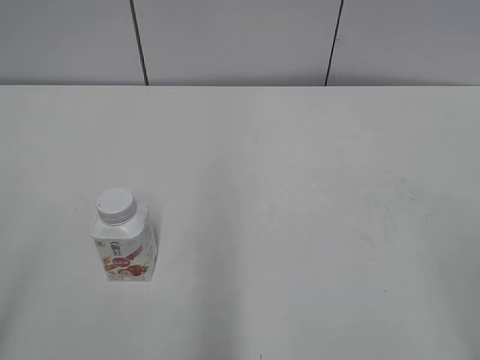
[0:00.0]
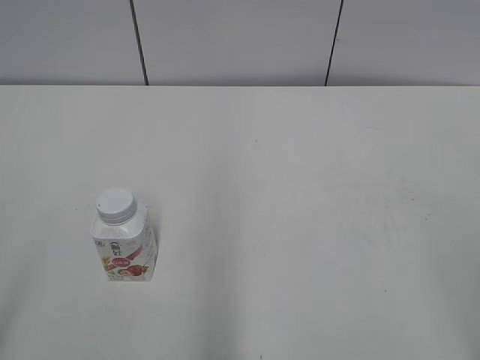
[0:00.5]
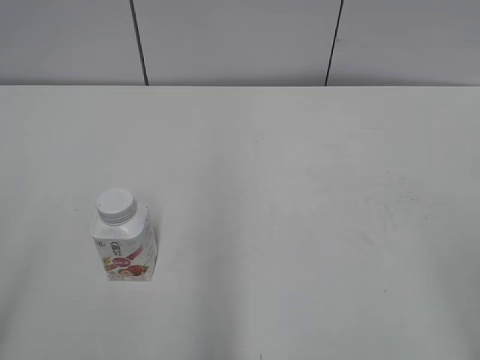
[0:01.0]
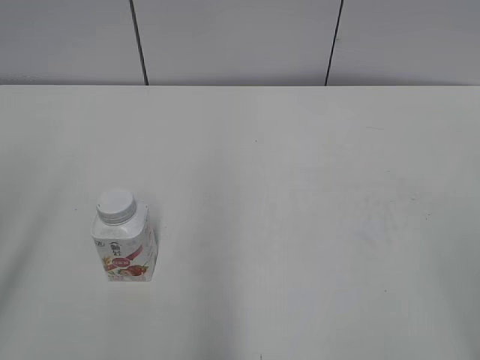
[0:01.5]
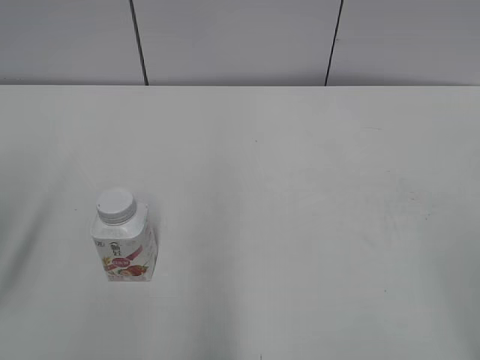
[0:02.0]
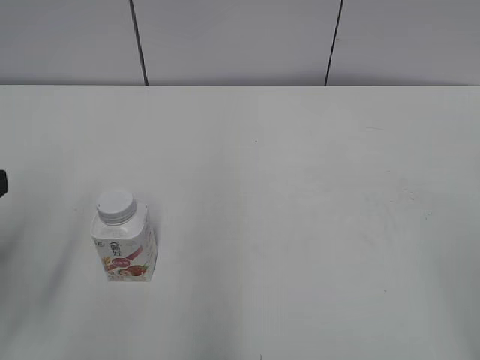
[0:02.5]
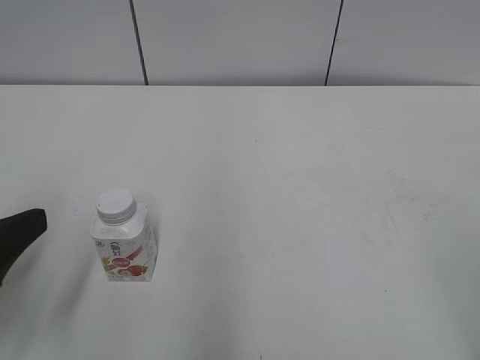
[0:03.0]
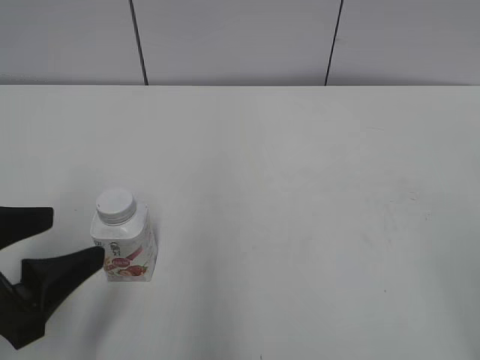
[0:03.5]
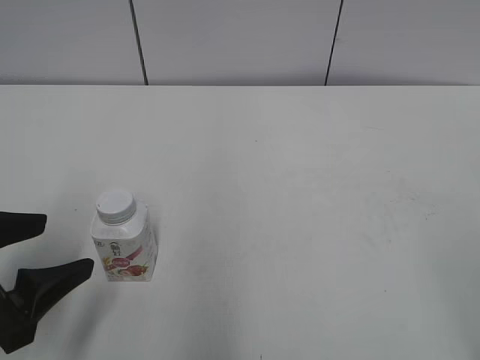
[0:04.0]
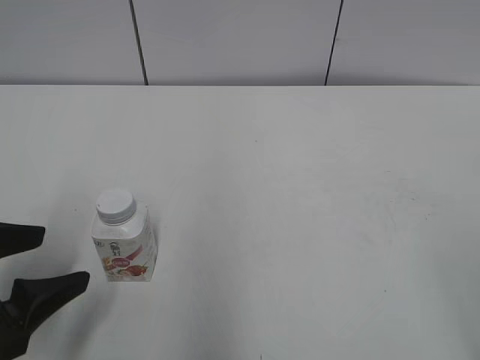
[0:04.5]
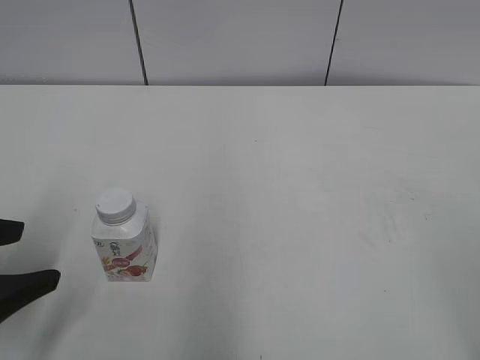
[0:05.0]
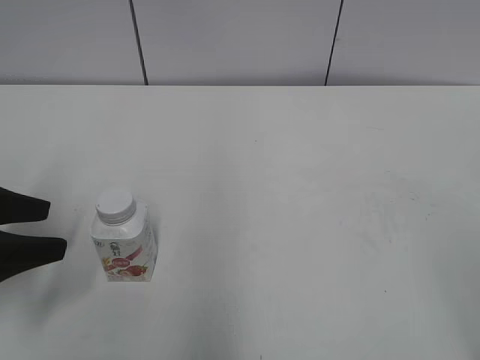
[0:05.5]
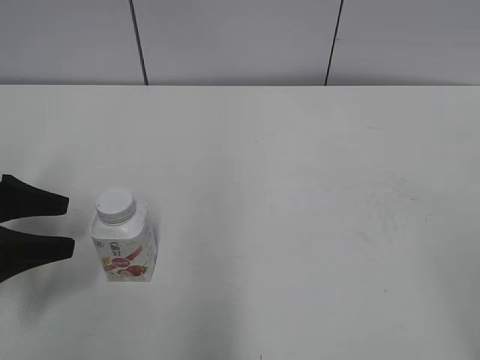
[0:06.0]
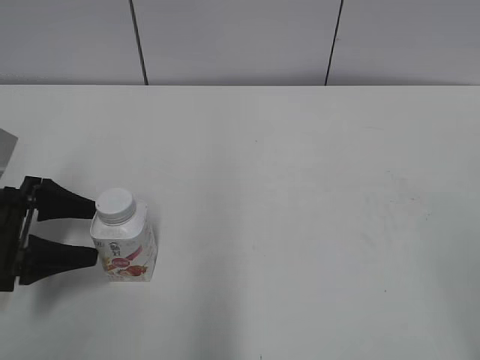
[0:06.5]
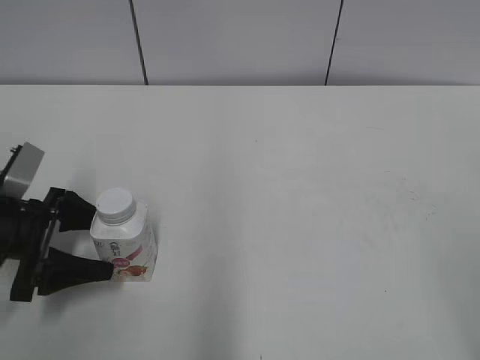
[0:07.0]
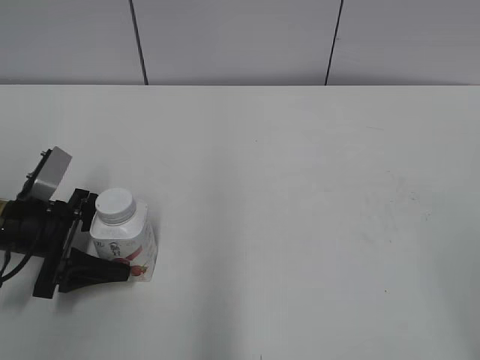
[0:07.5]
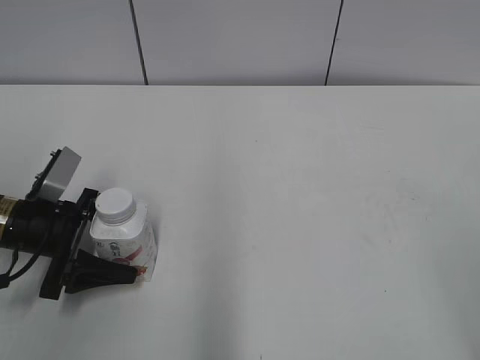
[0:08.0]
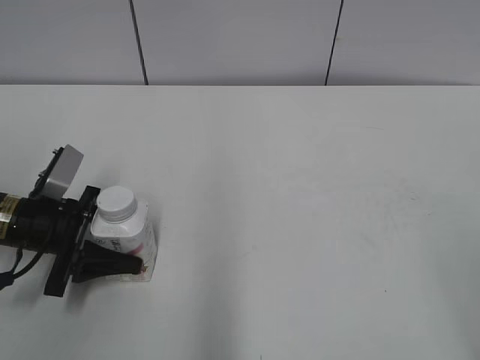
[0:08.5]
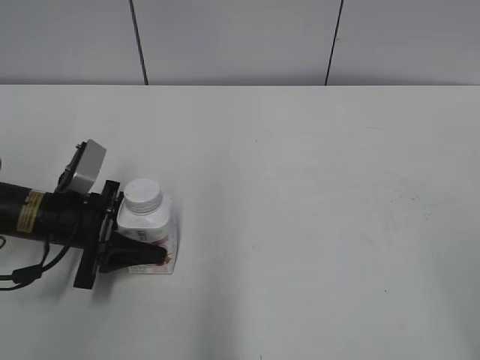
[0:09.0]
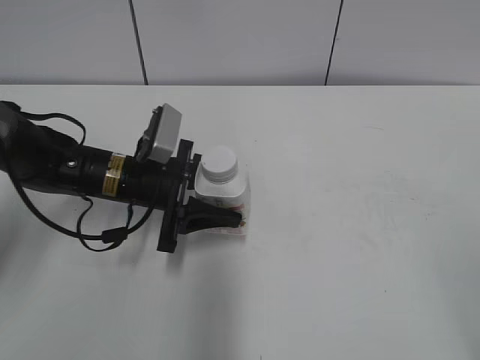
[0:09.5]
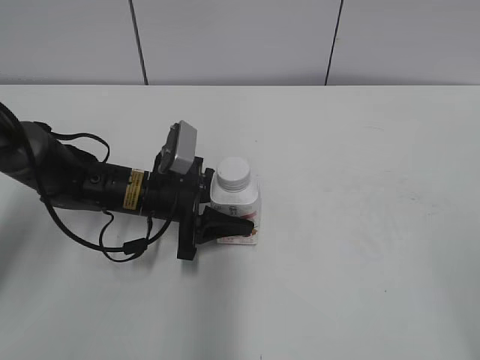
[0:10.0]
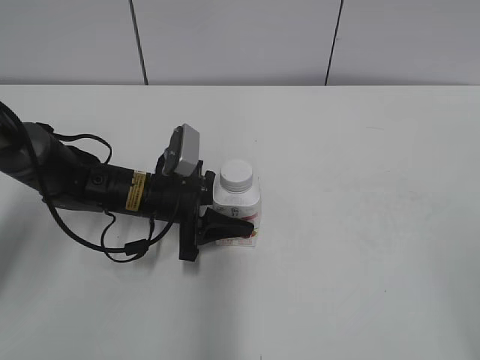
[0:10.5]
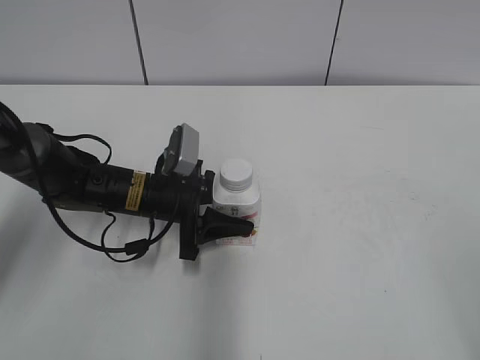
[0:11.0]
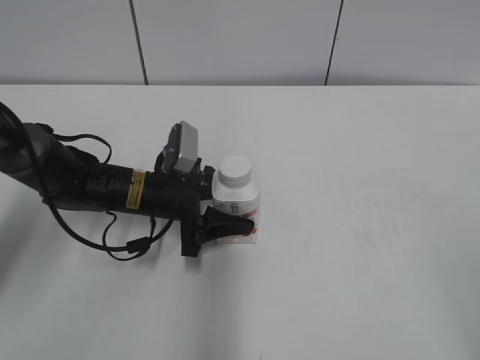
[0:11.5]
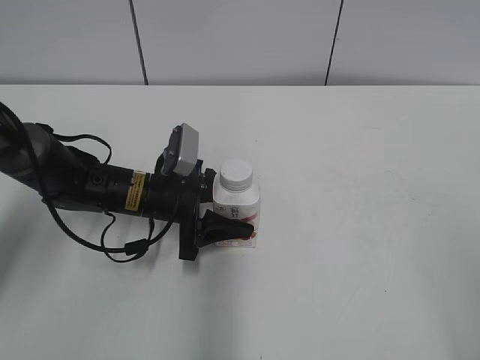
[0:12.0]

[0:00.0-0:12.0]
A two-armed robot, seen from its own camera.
Step, 0:00.0 to 0:08.0: Grab the Yili Changqing with the left hand.
Step, 0:08.5 to 0:10.5: Move the Yili Changqing from left to right.
0:02.0 to 0:04.0: The left gripper travels downward and to the right by some 15 cm.
0:04.0 to 0:06.0: The left gripper travels forward and to the left by some 10 cm.
0:06.0 to 0:08.0: The left gripper shifts roughly 10 cm downward, forward and to the right.
0:08.0 to 0:10.0: The left gripper travels to the right by roughly 15 cm, and closes.
0:10.0 to 0:12.0: The grippers stay close to where they were, moving slightly.

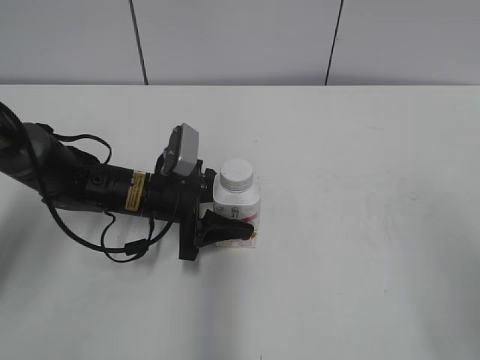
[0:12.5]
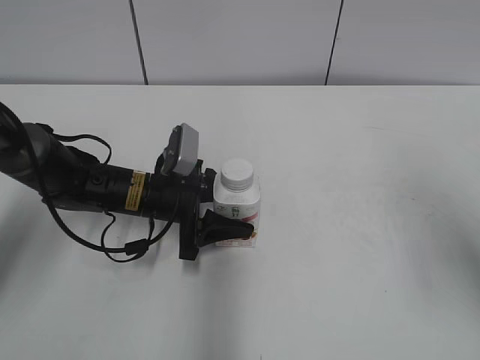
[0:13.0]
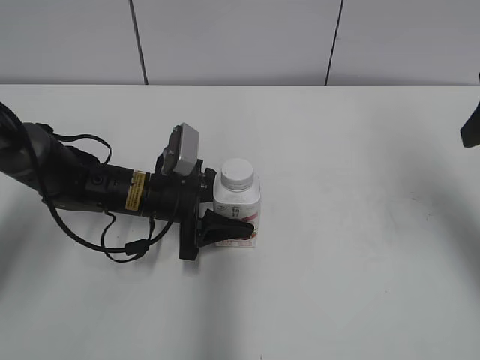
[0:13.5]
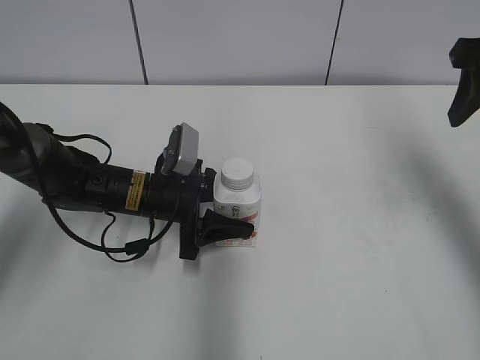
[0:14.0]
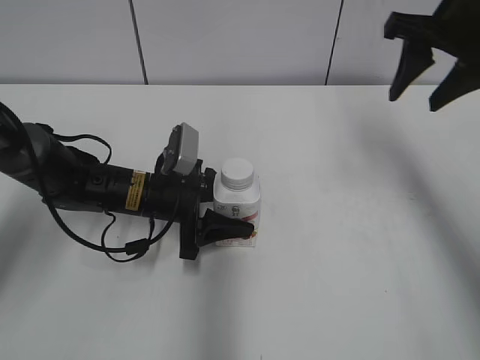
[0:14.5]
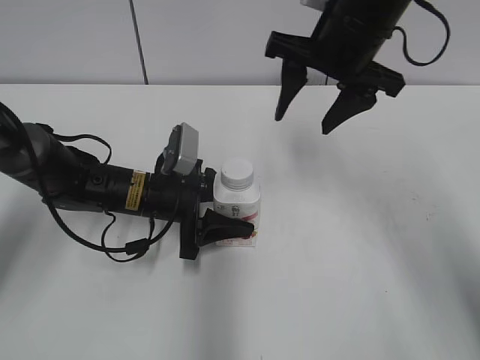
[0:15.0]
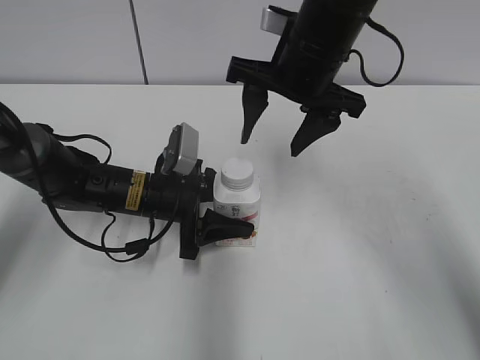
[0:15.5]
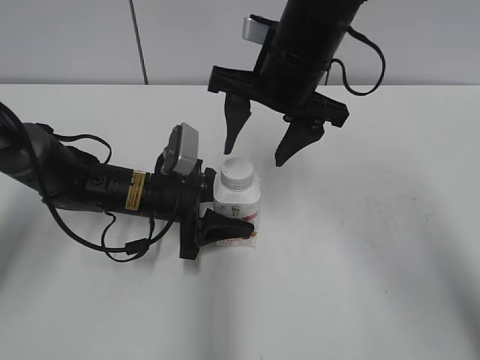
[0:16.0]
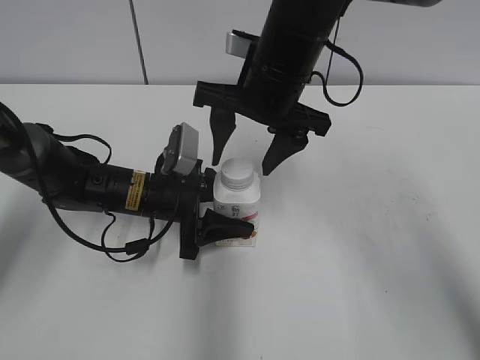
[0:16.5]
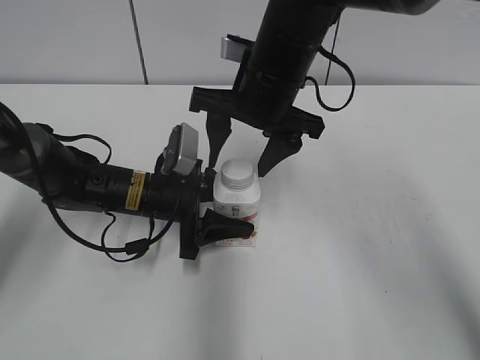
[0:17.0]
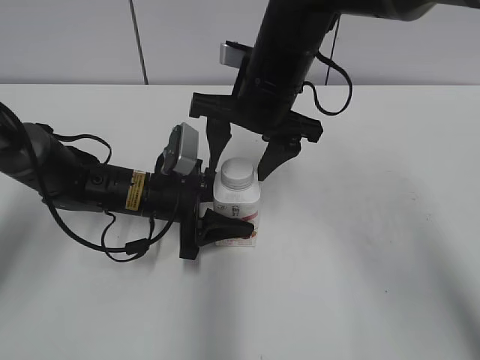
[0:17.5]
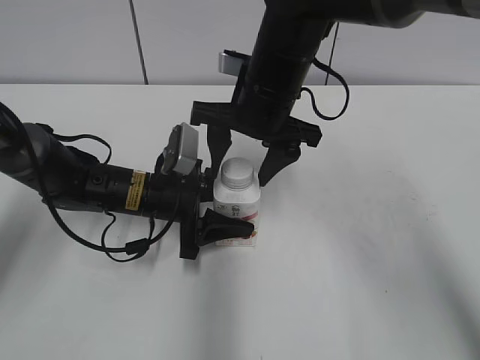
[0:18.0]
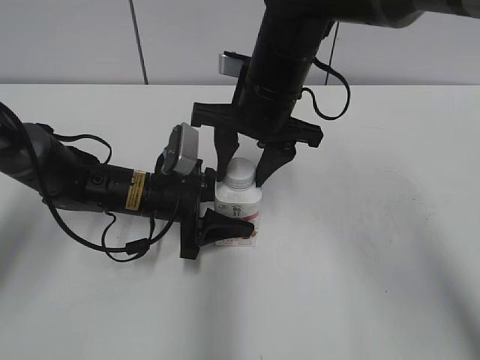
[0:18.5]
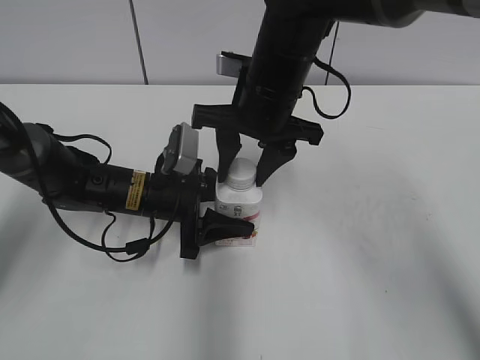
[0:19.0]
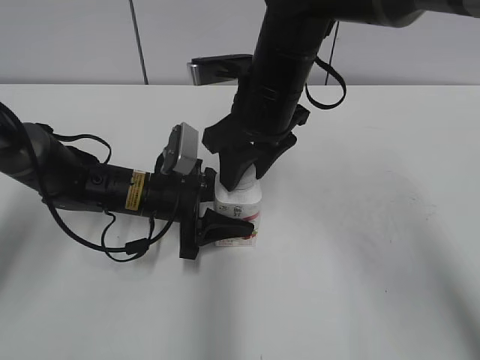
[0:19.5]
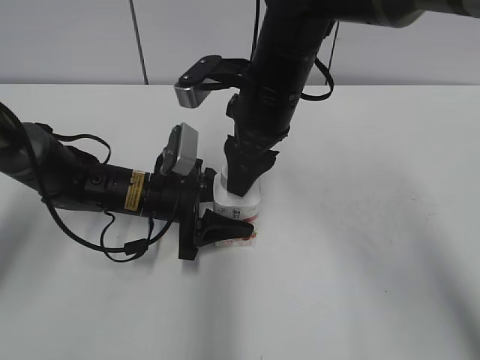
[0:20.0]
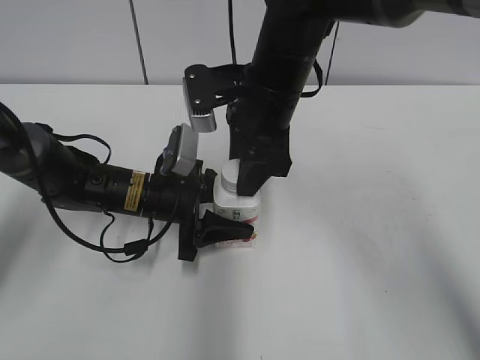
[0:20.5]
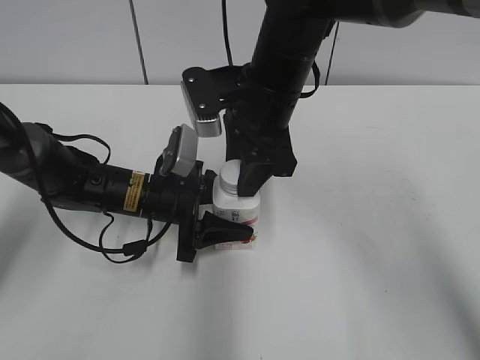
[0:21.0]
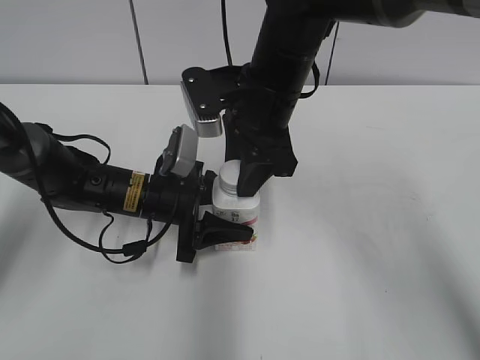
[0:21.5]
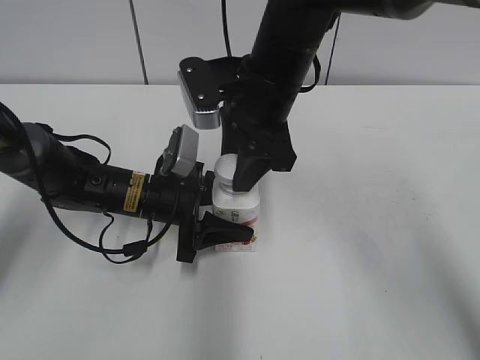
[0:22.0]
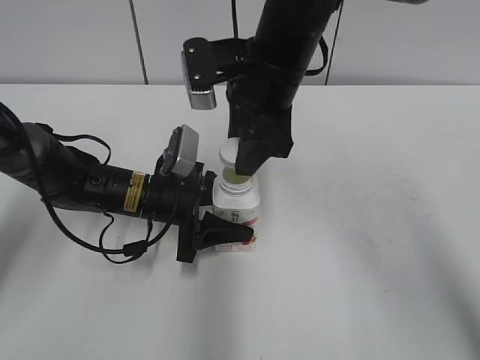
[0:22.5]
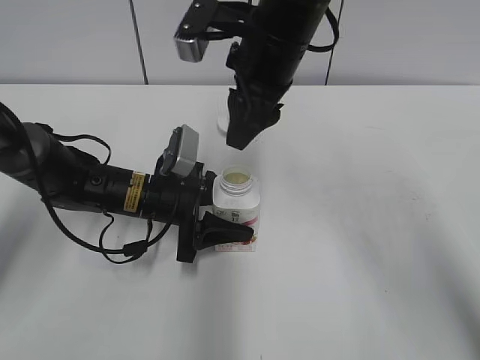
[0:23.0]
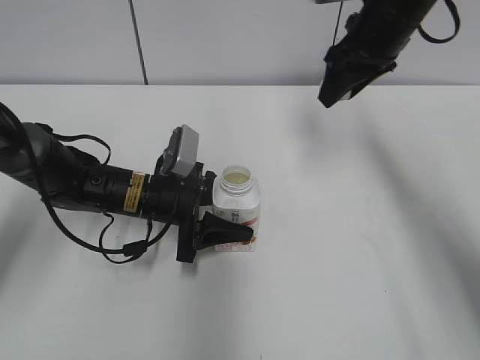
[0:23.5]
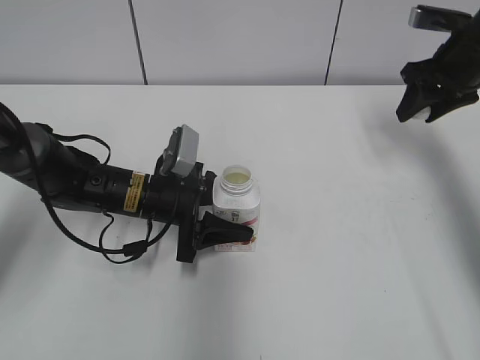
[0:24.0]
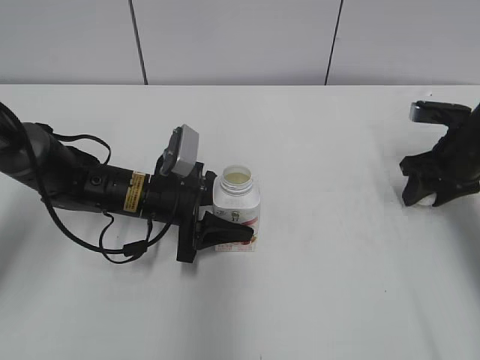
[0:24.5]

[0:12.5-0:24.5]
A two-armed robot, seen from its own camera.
0:12.5 to 0:14.5: The right gripper travels forward by some 30 cm, and closes up.
0:14.5 to 0:16.5: The right gripper goes about 20 cm to the left, and opens.
0:16.5 to 0:18.5: The right gripper closes.
0:20.5 to 0:22.5: The grippers stay close to where they were, moving slightly.
0:22.5 to 0:24.5: The right gripper goes approximately 30 cm to the right and downward.

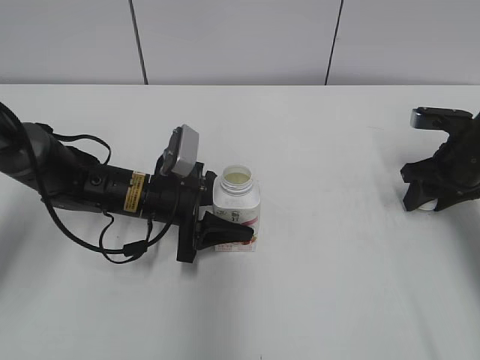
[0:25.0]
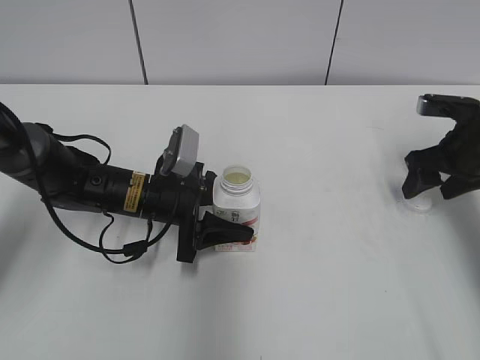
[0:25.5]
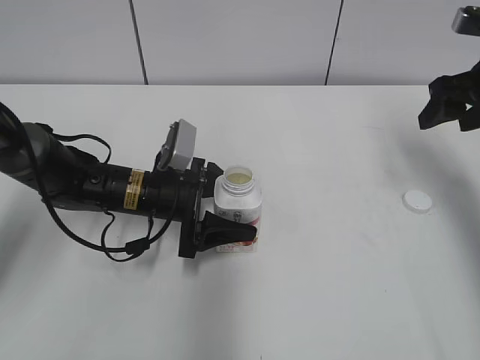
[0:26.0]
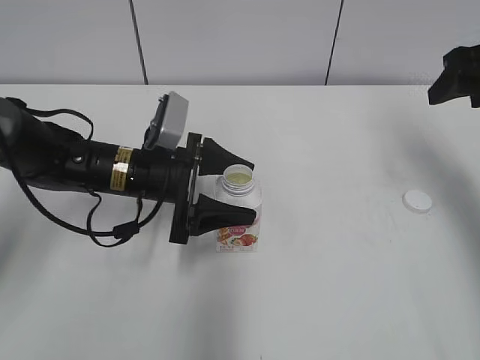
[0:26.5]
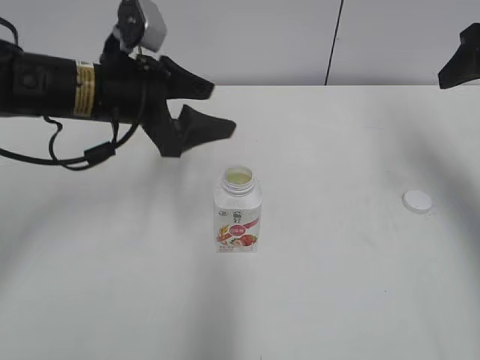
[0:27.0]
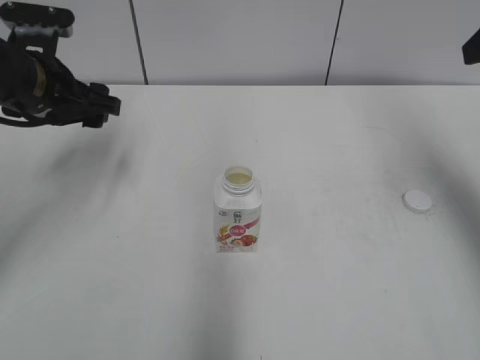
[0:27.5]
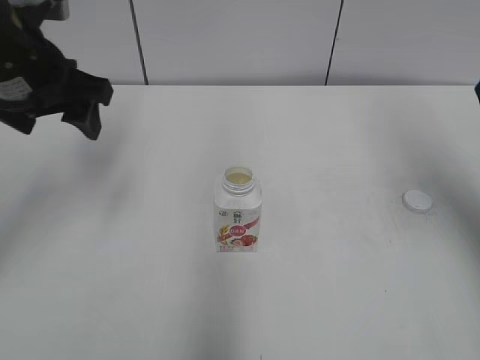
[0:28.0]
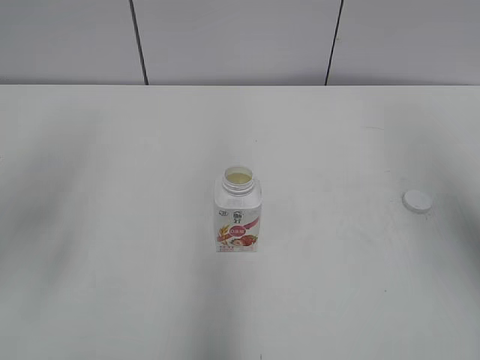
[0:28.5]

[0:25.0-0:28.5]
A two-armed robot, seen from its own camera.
0:25.0 to 0:27.0: Both grippers travel together upward, roughly 15 cm. The right gripper opens its fingers. The left gripper opens.
0:27.0 to 0:28.5: The left gripper shifts approximately 20 cm upward, to the left and backward; the right gripper shifts roughly 15 cm backward and upward.
